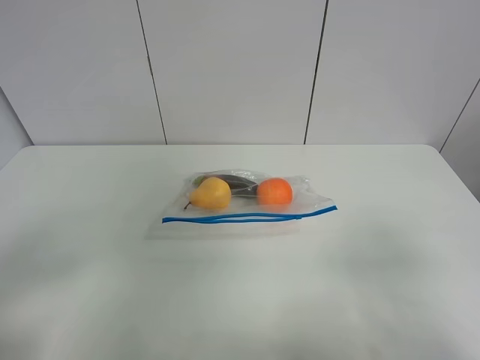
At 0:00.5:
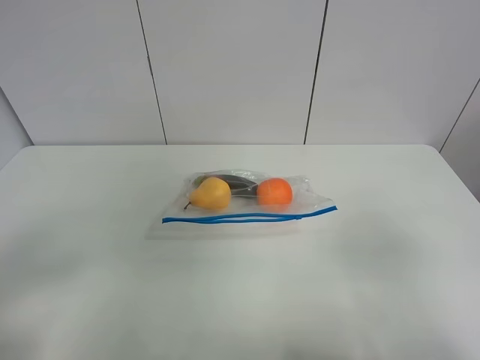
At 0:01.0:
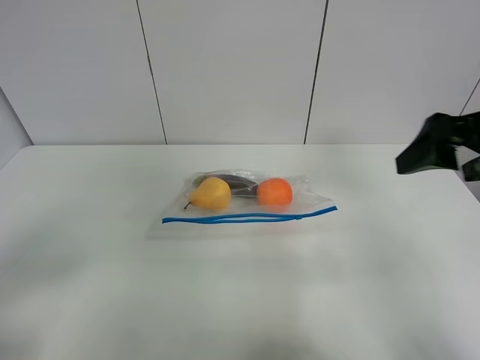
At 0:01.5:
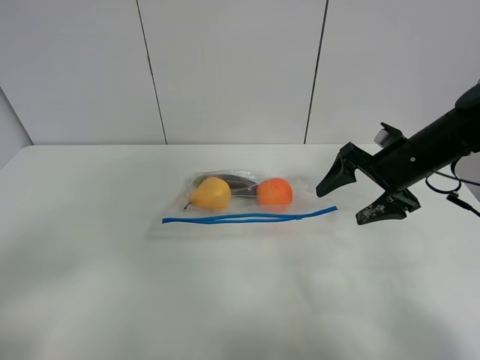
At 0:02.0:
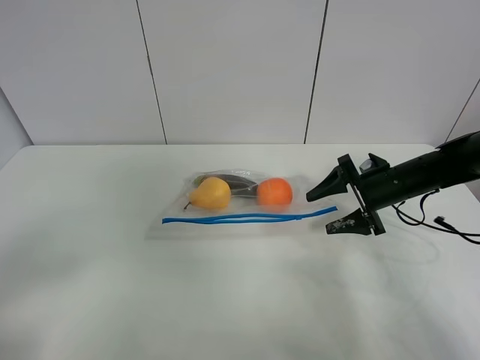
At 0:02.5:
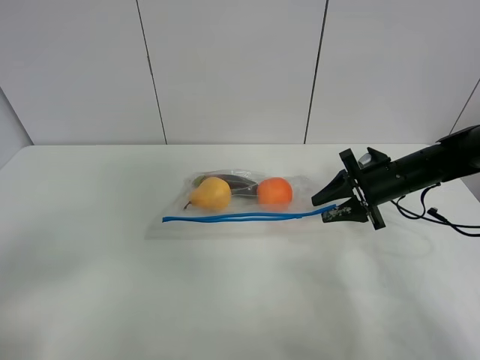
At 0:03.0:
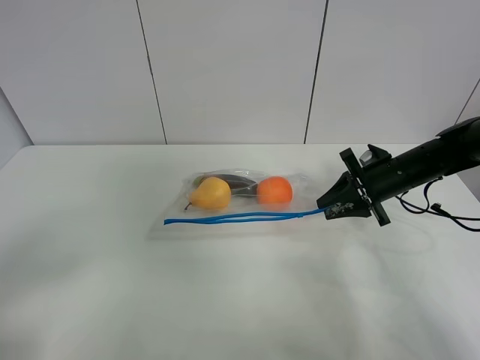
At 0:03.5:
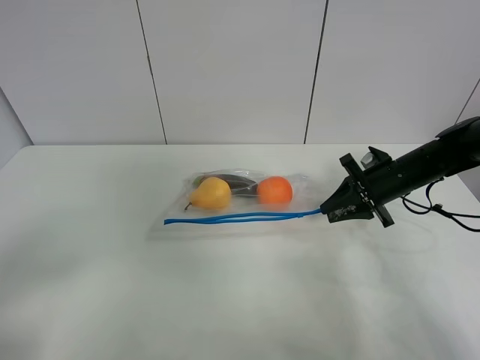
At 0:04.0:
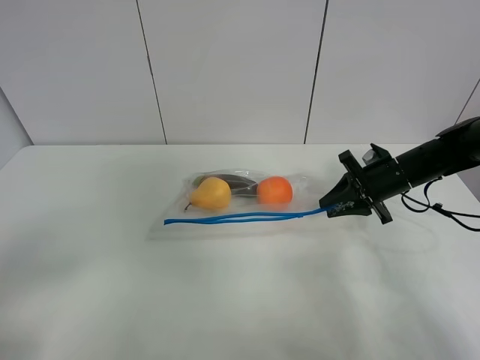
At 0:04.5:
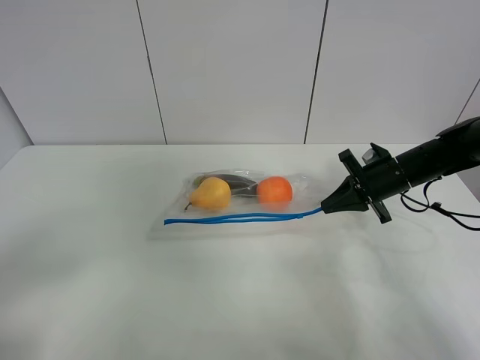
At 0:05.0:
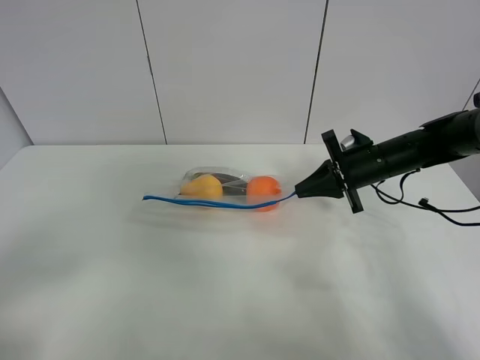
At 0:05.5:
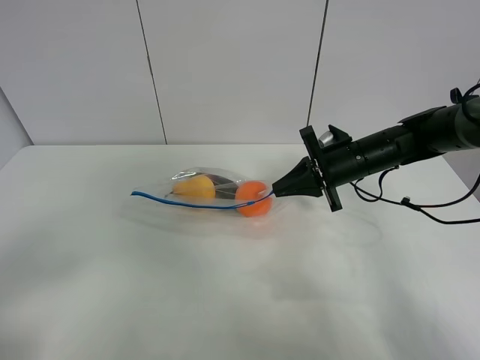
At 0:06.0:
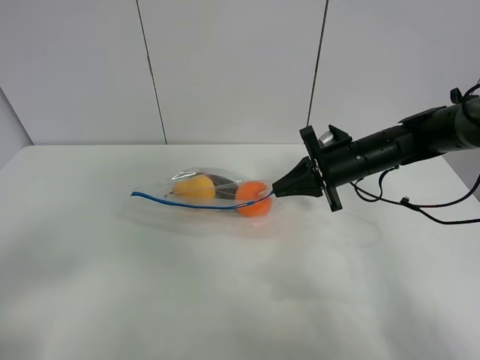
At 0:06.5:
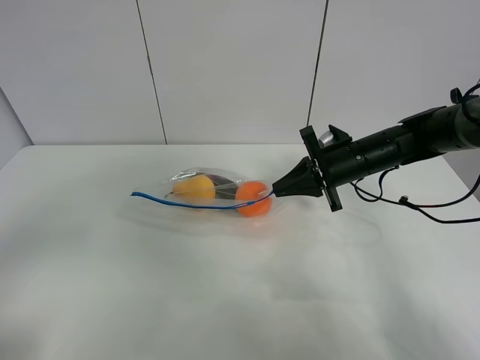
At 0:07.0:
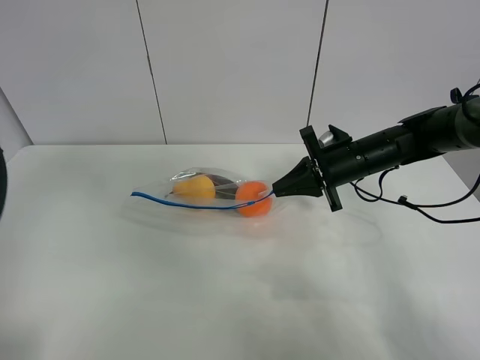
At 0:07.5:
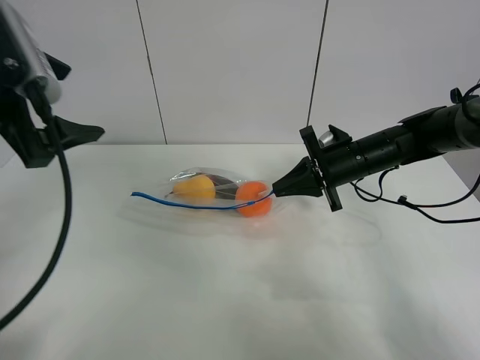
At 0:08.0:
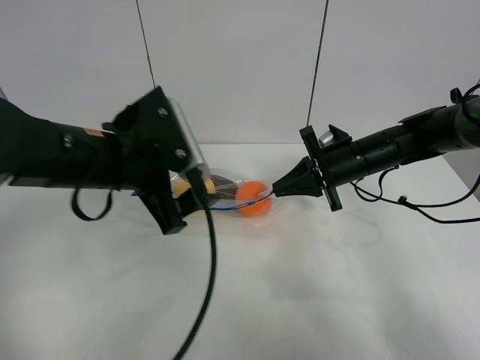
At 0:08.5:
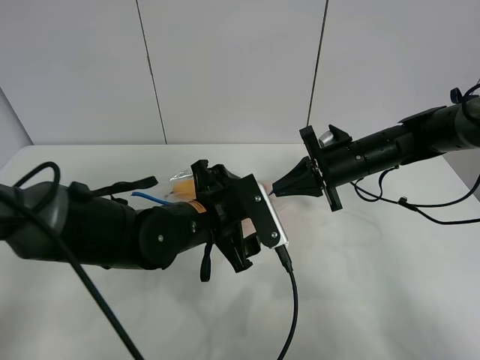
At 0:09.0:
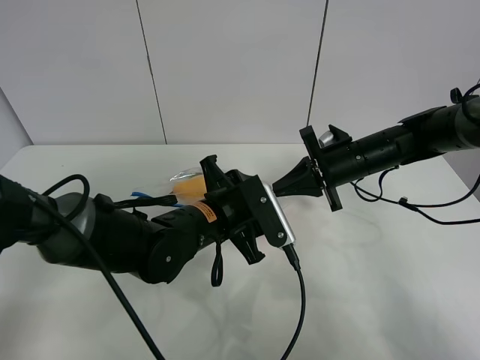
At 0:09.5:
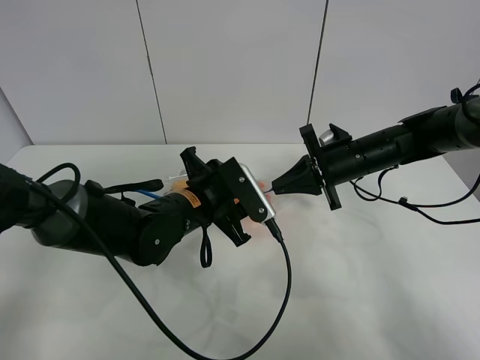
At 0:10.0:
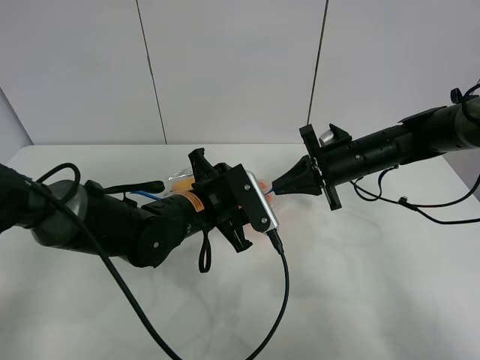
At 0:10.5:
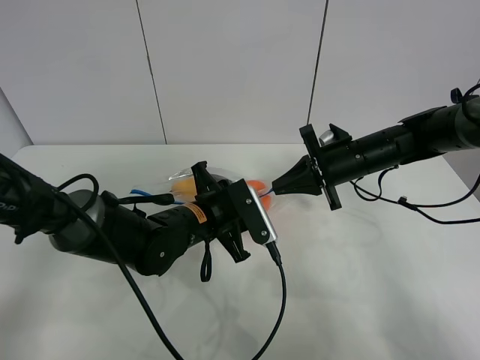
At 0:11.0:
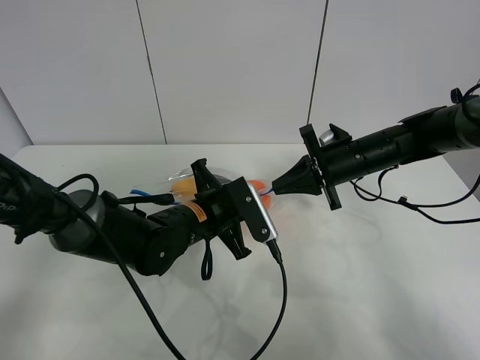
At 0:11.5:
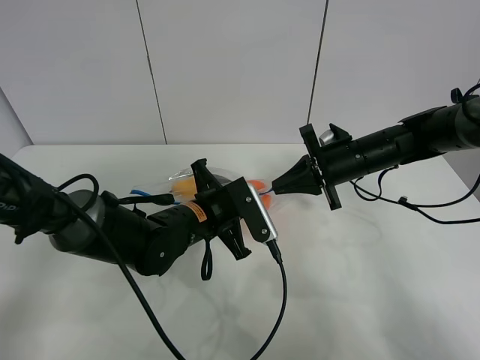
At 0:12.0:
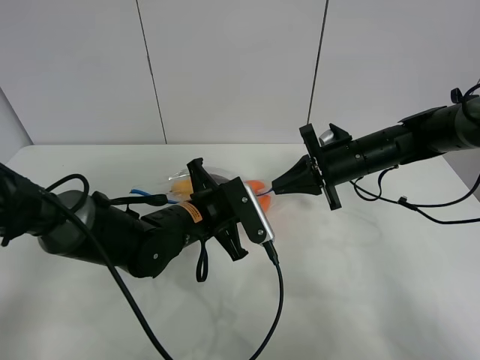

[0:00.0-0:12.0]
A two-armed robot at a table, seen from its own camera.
Step, 0:00.0 to 0:04.0: Grasp the fruit bag with right gripper.
Step, 0:04.5 to 0:05.0: Lift the fruit bag with your right gripper.
0:00.0 to 0:02.0: The right gripper heads forward and downward, covering about 40 cm.
0:02.0 to 0:04.0: The right gripper closes up.
0:04.0 to 0:06.0: The right gripper goes approximately 10 cm to the left.
0:06.0 to 0:08.0: The left gripper shifts some 30 cm forward and to the right.
0:08.0 to 0:10.0: The left gripper travels downward and to the right by approximately 15 cm, and closes its fingers.
0:10.0 to 0:12.0: The left gripper closes.

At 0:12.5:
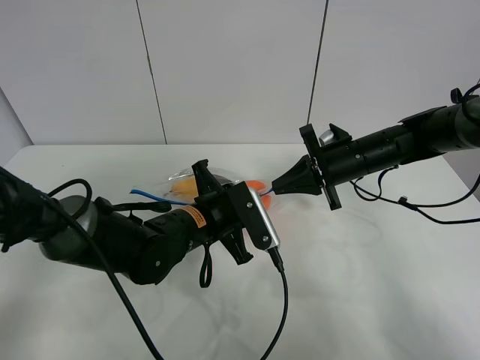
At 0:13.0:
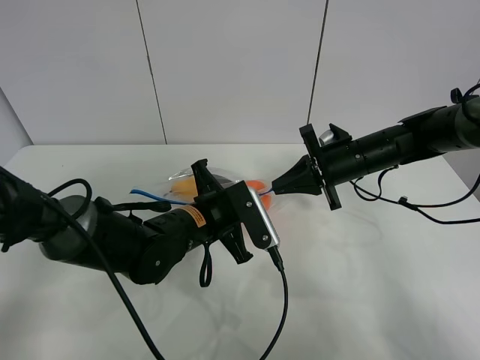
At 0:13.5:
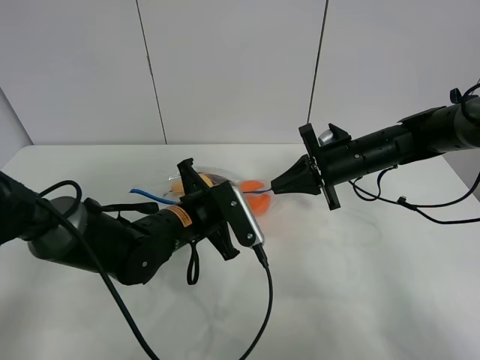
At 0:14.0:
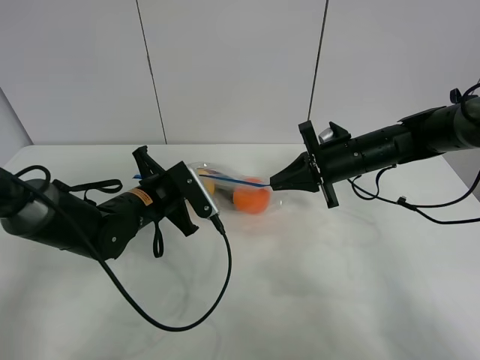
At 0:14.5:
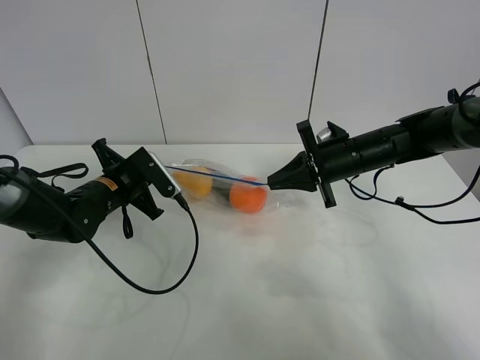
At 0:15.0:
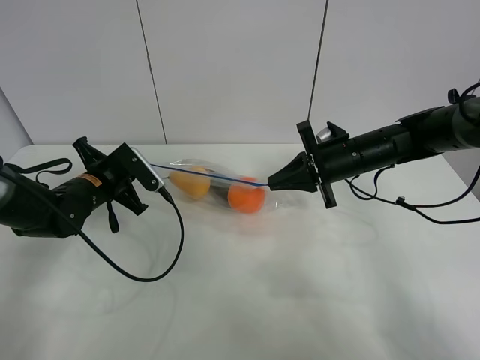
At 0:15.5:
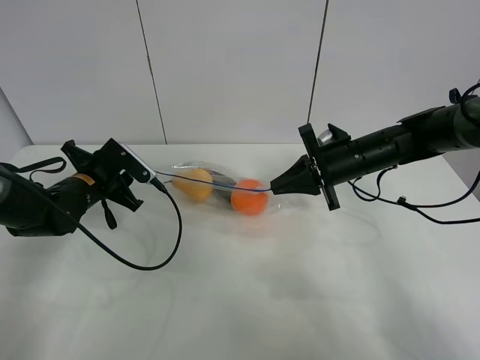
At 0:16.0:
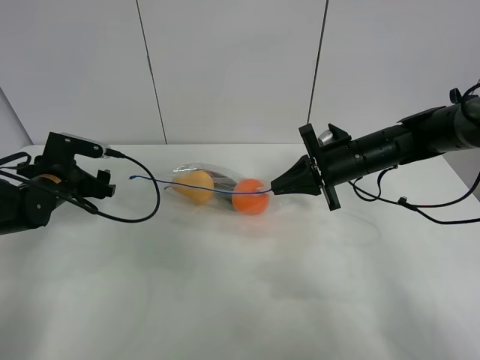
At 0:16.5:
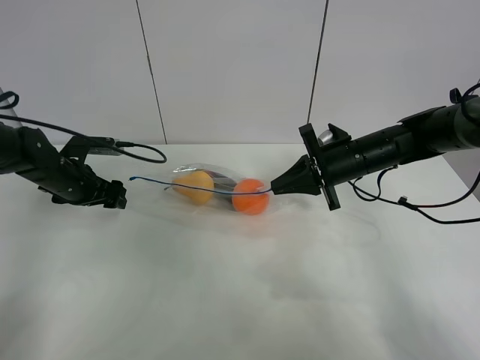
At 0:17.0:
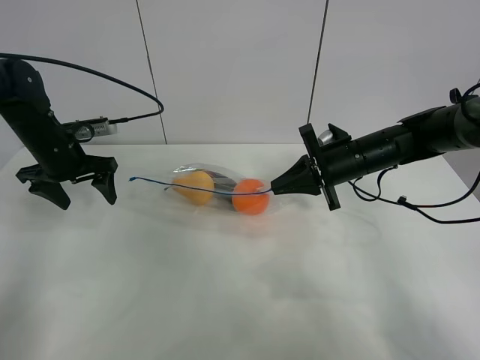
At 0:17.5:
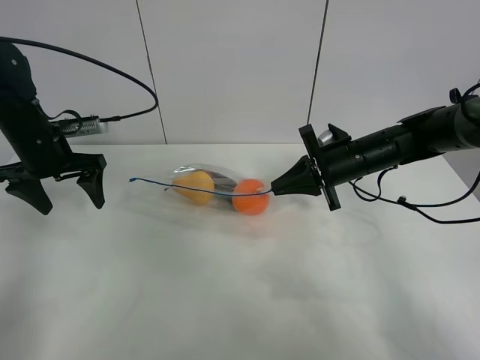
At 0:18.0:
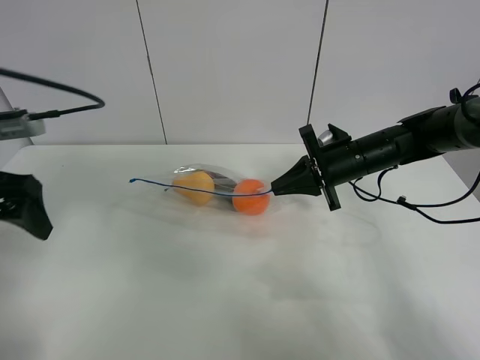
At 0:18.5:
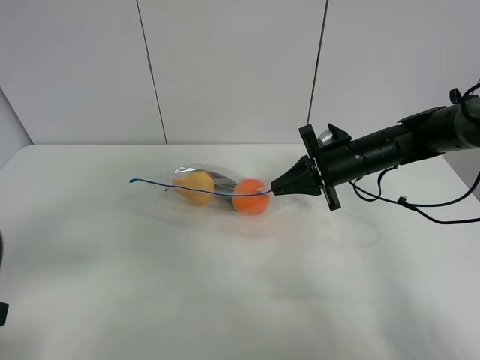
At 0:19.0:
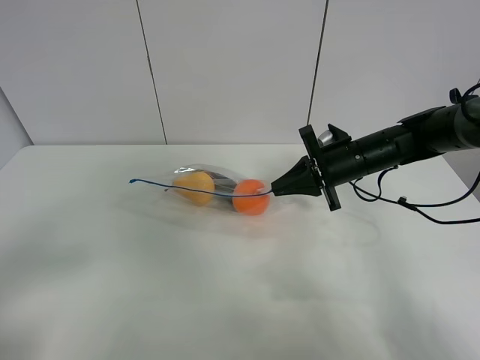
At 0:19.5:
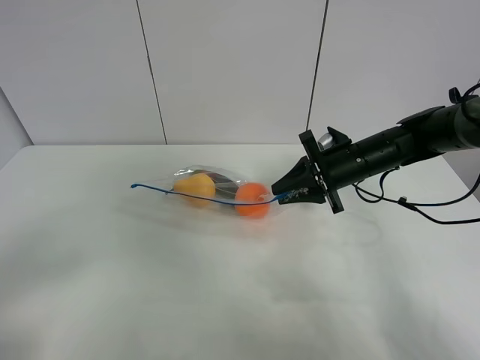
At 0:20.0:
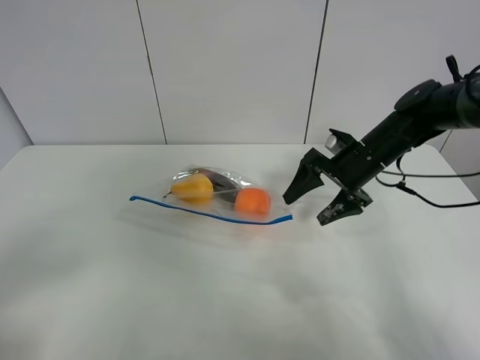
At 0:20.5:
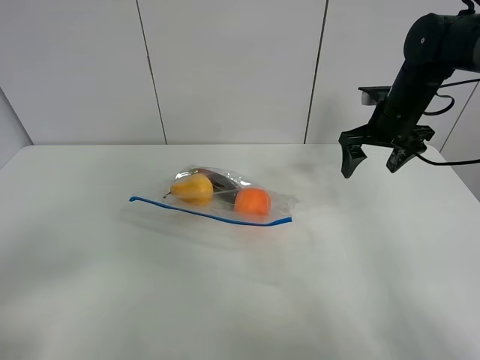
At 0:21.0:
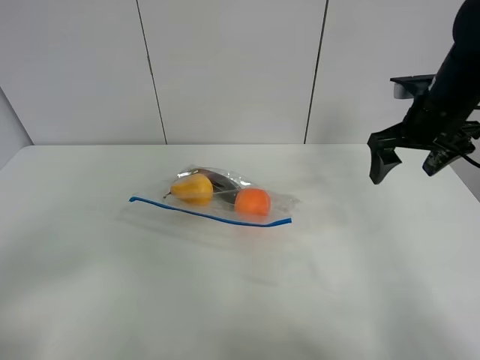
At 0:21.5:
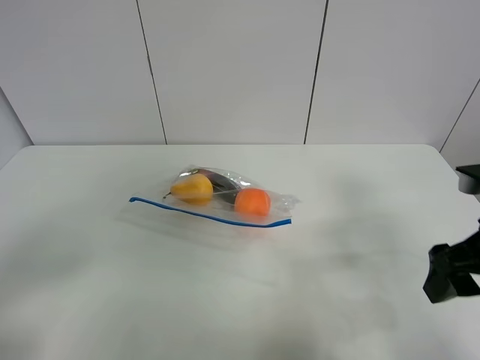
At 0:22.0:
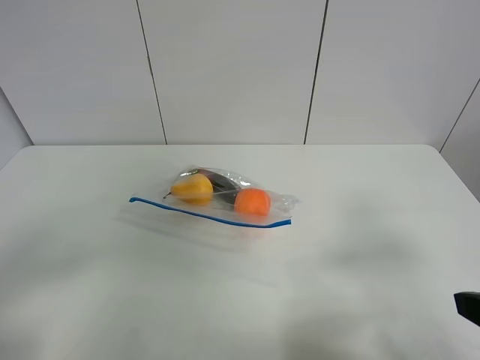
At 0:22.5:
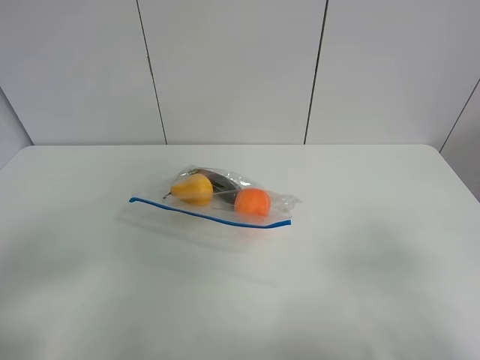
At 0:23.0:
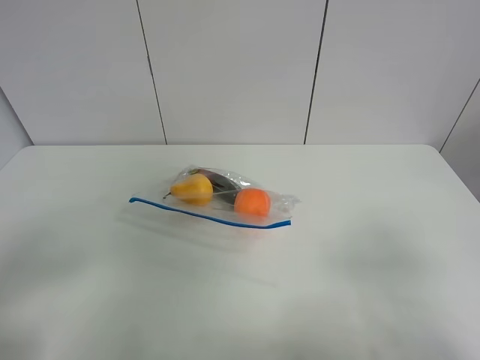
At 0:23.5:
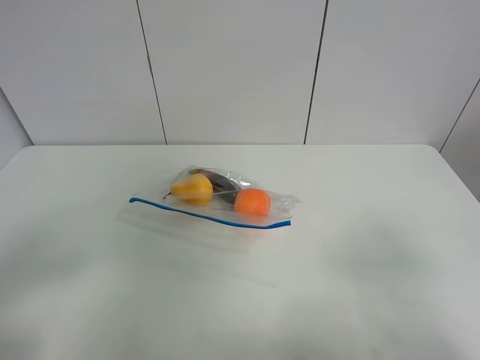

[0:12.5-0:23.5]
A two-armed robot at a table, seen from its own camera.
Step, 0:12.5 to 0:15.5: Pull the fruit bag with left gripper.
0:12.5 to 0:14.5: The left gripper goes about 15 cm to the left and forward.
0:14.5 to 0:16.0: The left gripper shifts some 10 cm to the left, and opens its fingers.
0:16.0 to 0:18.0: The left gripper heads upward and backward, covering about 20 cm.
0:18.0 to 0:20.0: The left gripper shifts approximately 20 cm backward, while the right gripper opens up.
0:20.0 to 0:21.5: The right gripper travels backward by roughly 20 cm.
0:21.5 to 0:23.5: The right gripper is displaced backward by some 15 cm.

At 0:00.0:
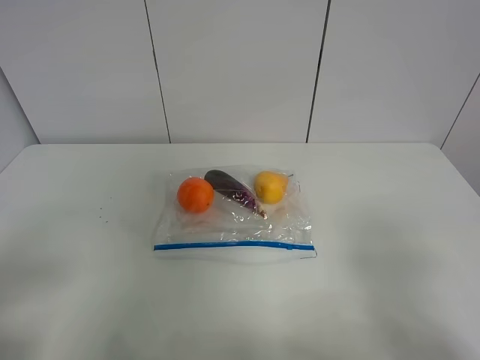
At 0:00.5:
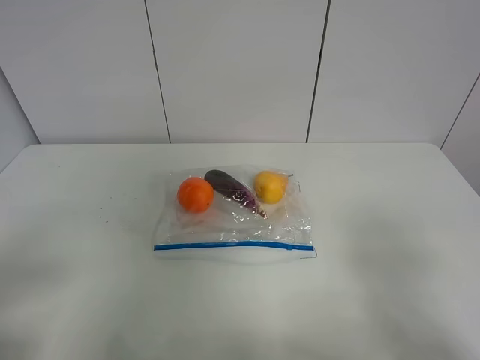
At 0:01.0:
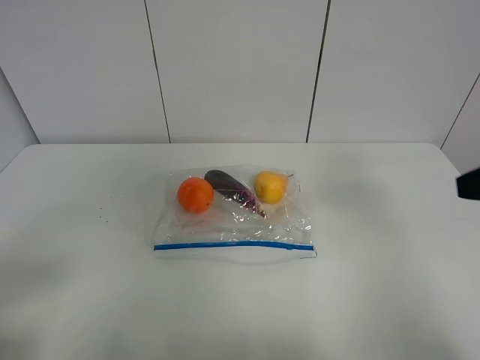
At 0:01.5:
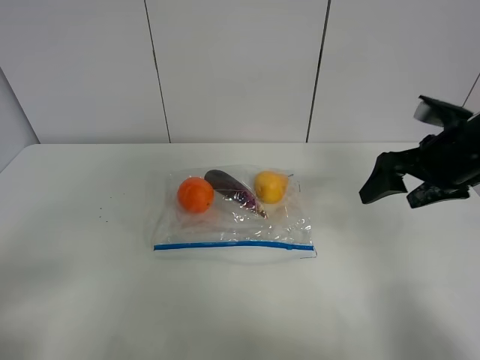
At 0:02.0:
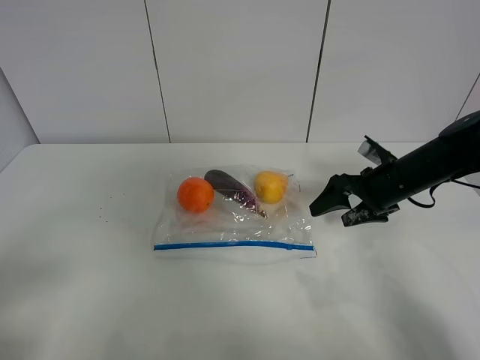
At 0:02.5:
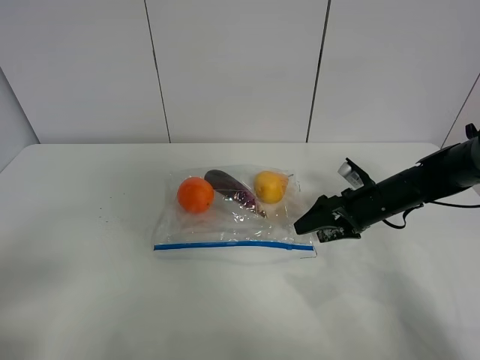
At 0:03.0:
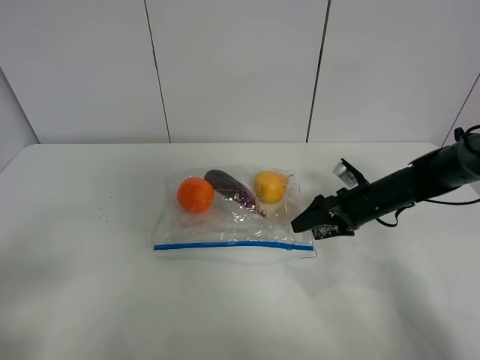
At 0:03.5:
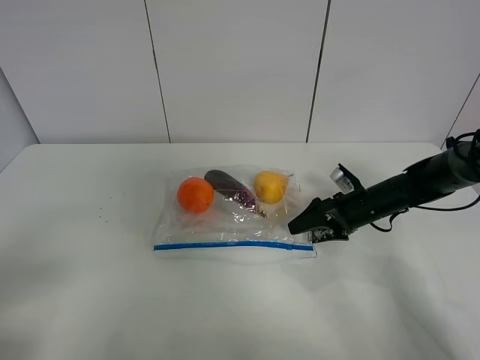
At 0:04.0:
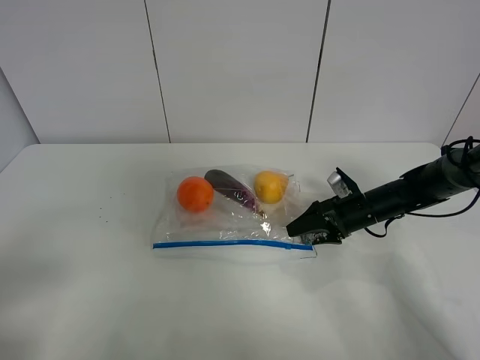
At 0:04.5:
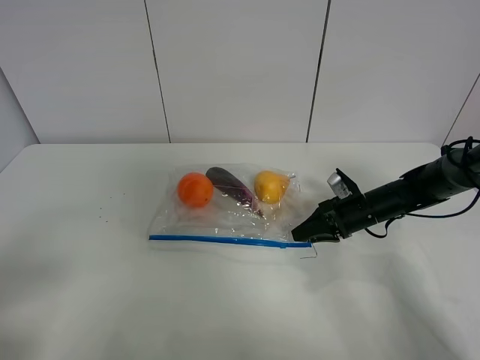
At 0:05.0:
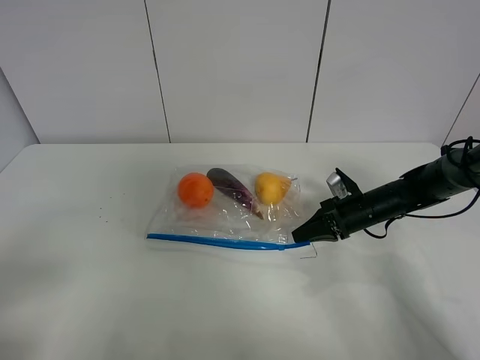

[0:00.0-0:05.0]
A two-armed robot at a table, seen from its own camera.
Step, 0:00.0 to 0:04.5: Grasp the fruit bag with right gripper.
0:00.0 to 0:02.5: The right gripper shifts approximately 40 cm forward and downward.
0:02.5 to 0:05.0: The right gripper closes up.
